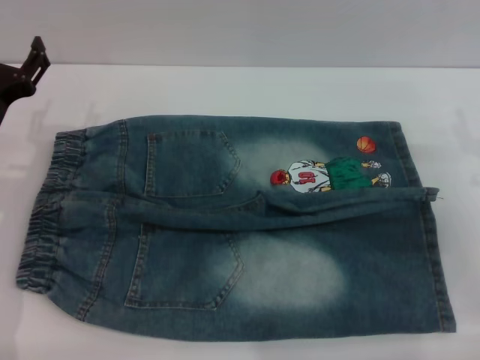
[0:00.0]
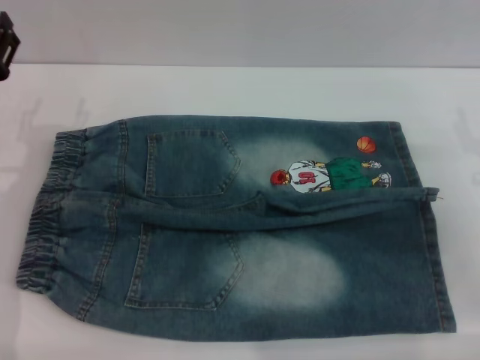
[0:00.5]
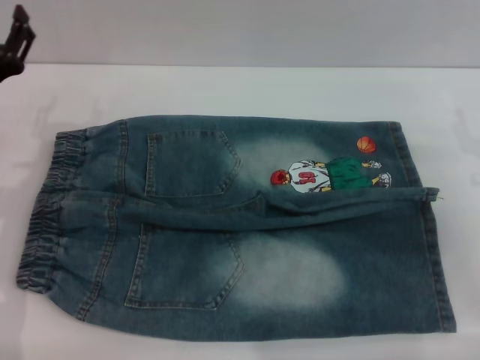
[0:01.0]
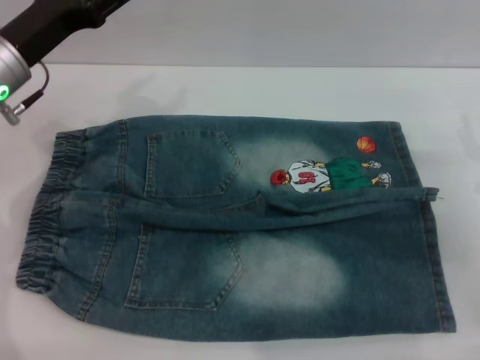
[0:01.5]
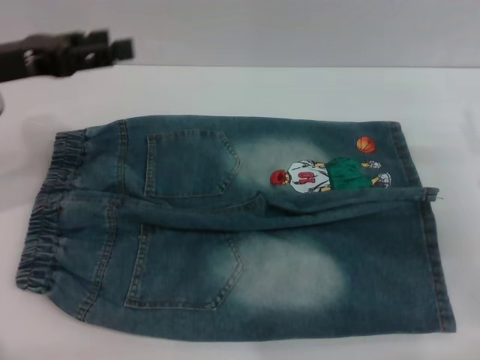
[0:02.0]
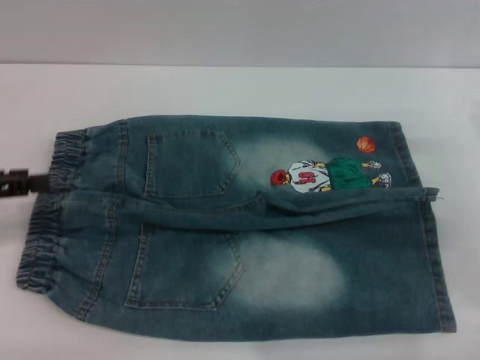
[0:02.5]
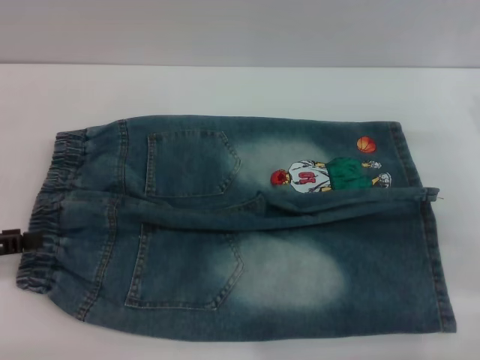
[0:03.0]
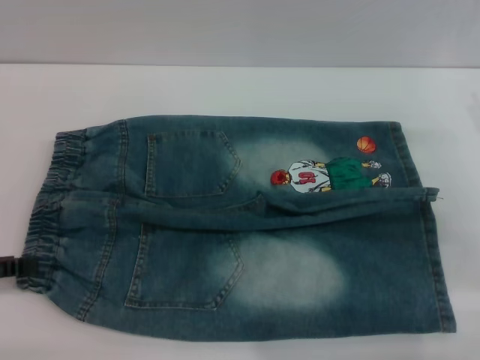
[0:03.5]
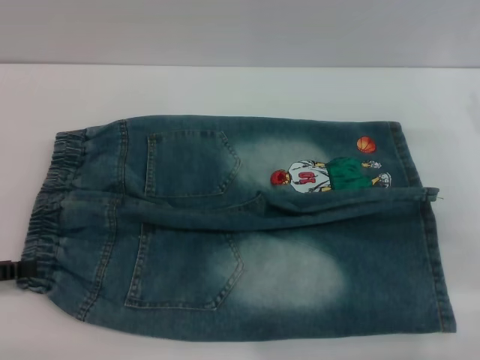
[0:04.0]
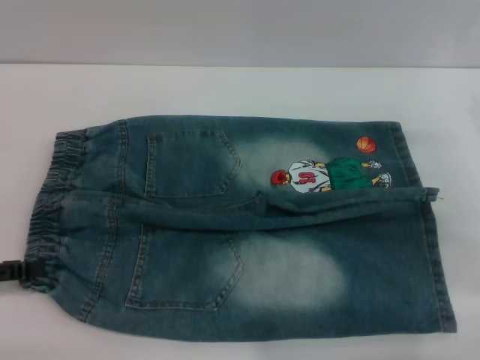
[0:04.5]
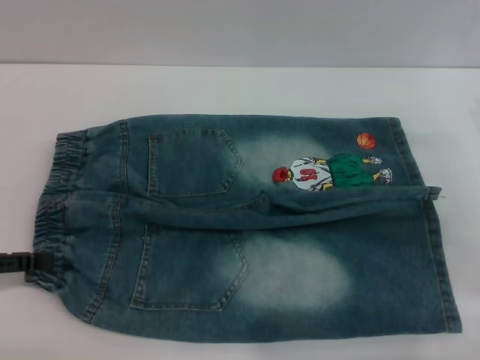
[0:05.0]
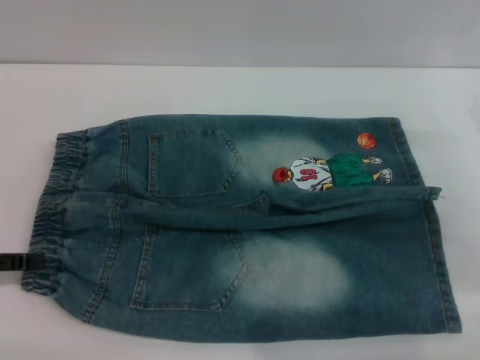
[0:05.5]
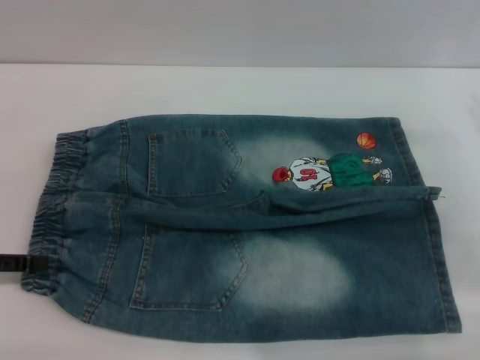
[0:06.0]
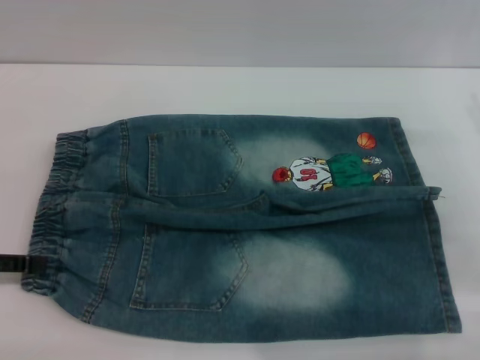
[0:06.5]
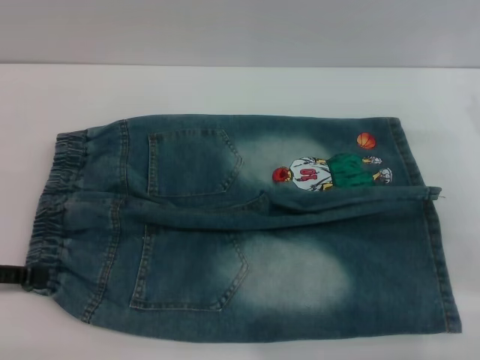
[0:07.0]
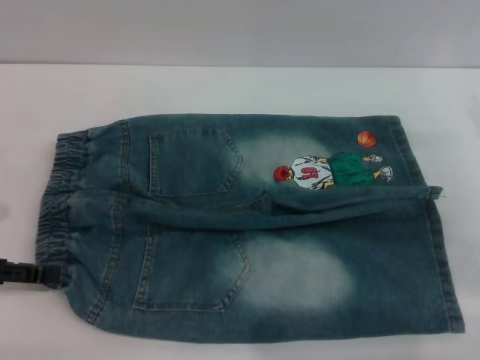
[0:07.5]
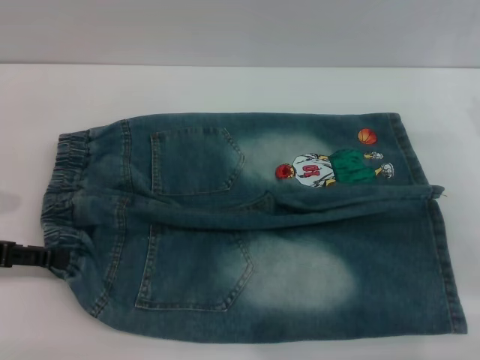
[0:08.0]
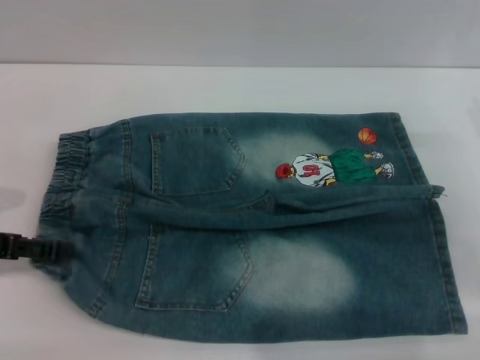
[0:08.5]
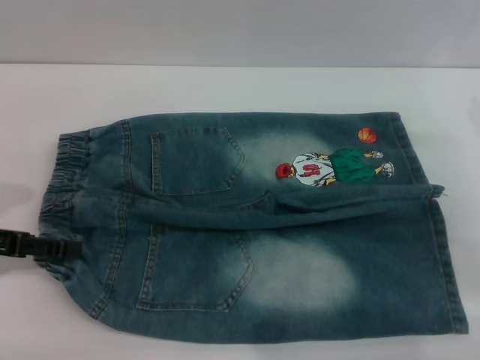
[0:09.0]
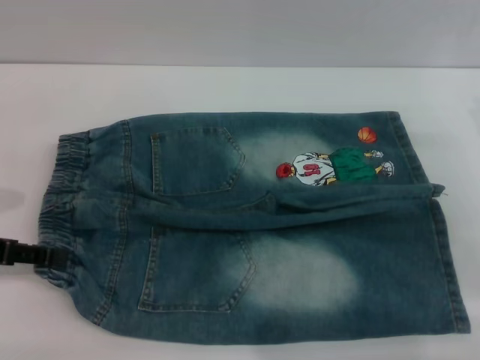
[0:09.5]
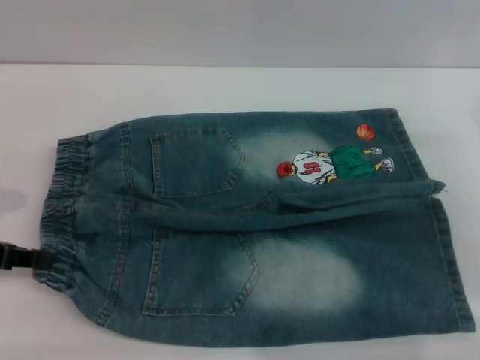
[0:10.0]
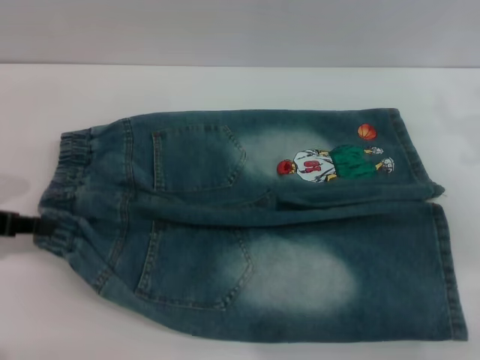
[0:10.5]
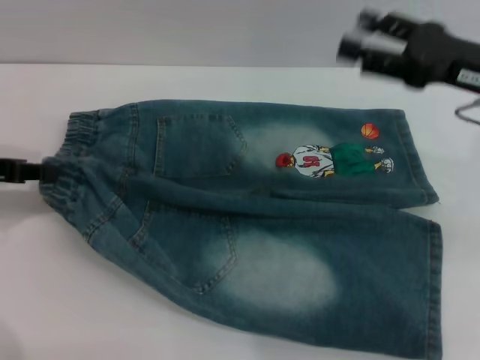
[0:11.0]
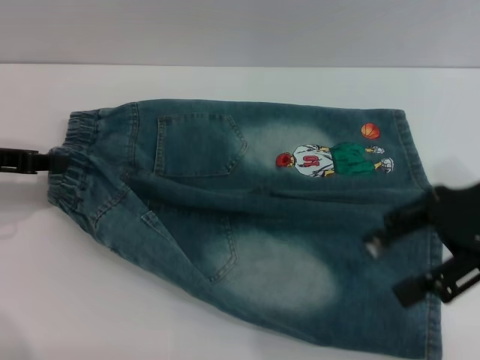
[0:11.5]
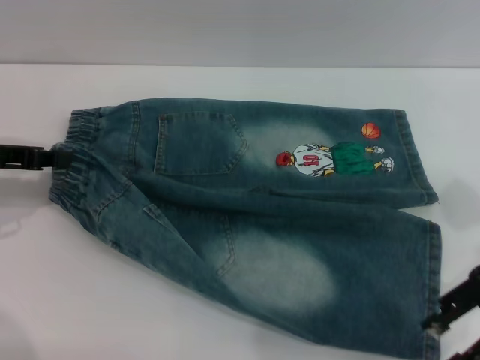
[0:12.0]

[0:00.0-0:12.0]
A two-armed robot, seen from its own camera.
0:00.0 to 0:02.0: The left gripper travels upward by approximately 10 cm.
0:02.0 to 0:04.0: The left gripper travels backward, downward and to the left by roughly 20 cm.
0:04.0 to 0:08.0: The grippers move only a little.
0:08.0 to 0:10.0: The left gripper closes up.
0:10.0 to 0:12.0: The right gripper goes roughly 10 cm upward. The left gripper goes some 5 cm forward, and closes up.

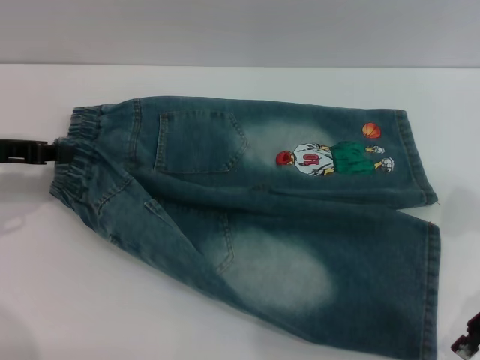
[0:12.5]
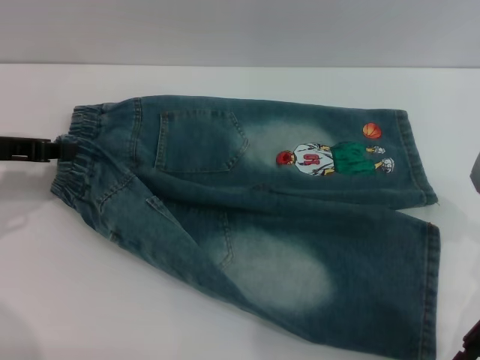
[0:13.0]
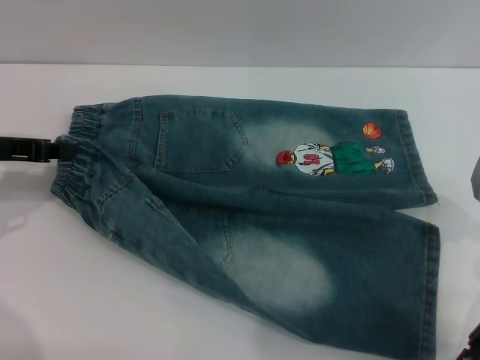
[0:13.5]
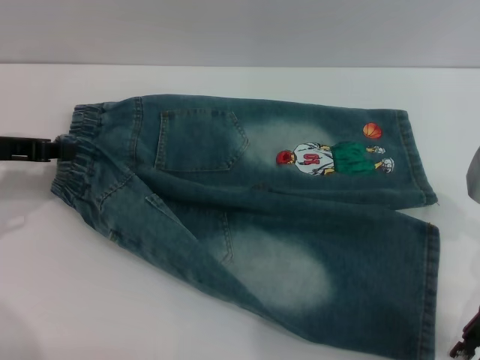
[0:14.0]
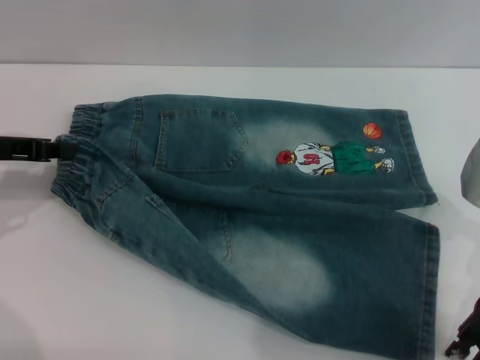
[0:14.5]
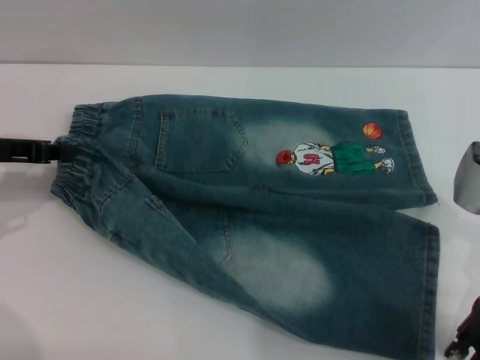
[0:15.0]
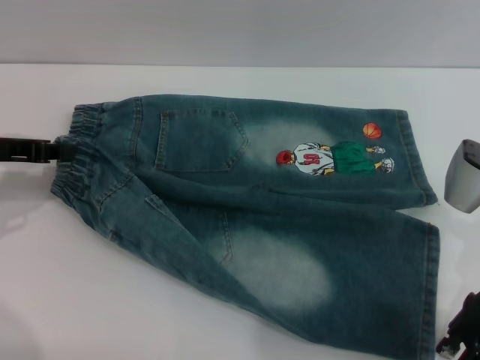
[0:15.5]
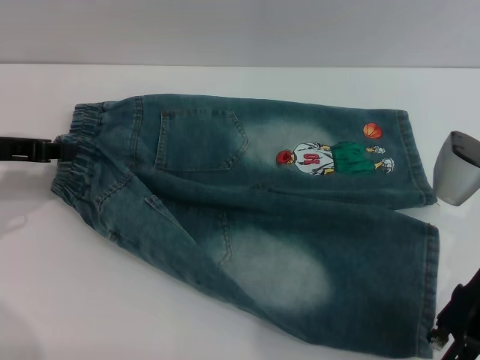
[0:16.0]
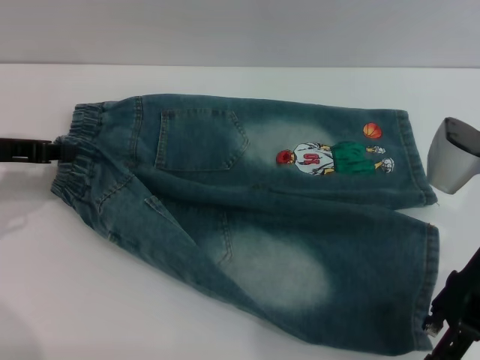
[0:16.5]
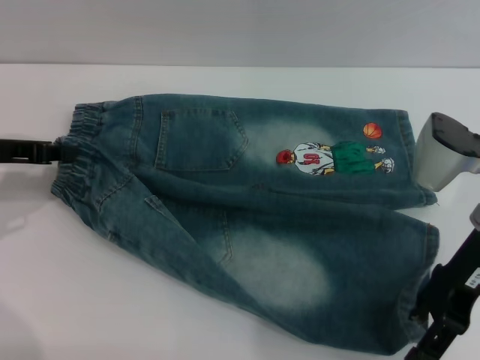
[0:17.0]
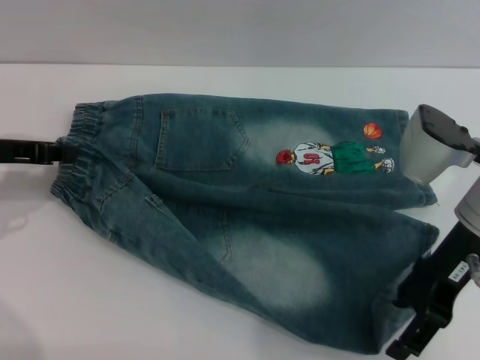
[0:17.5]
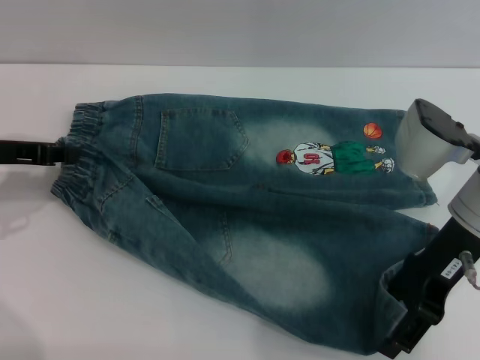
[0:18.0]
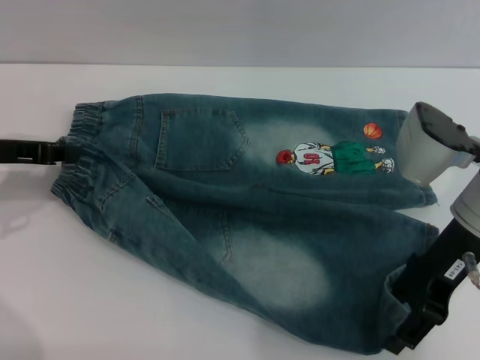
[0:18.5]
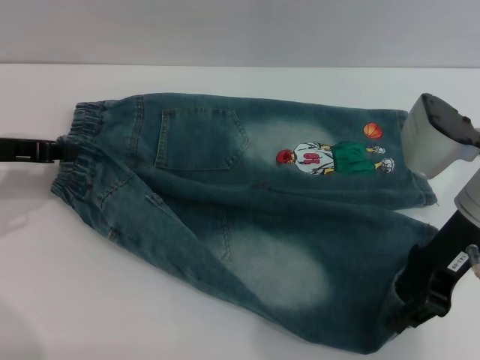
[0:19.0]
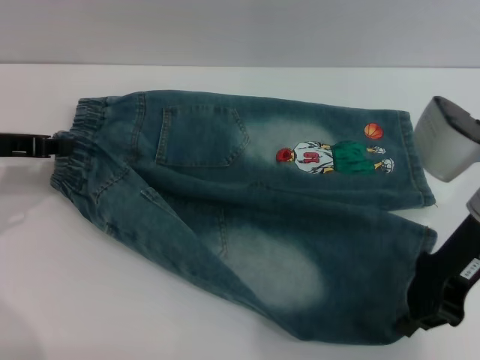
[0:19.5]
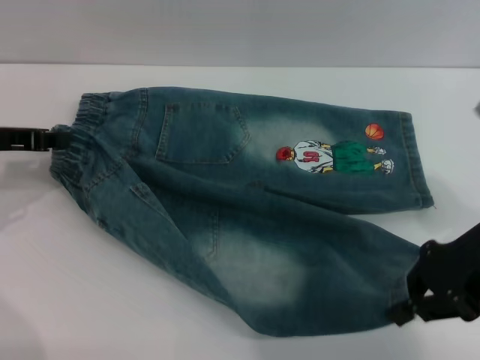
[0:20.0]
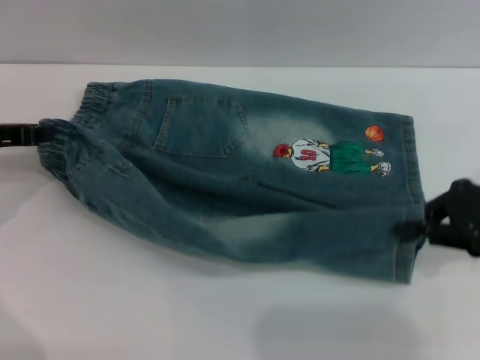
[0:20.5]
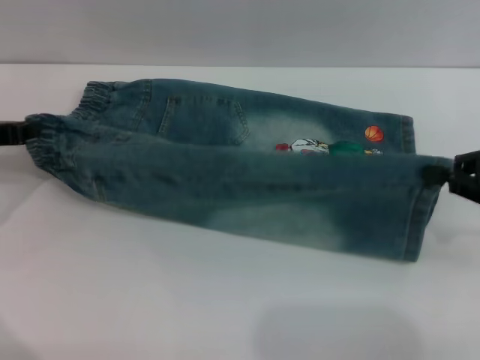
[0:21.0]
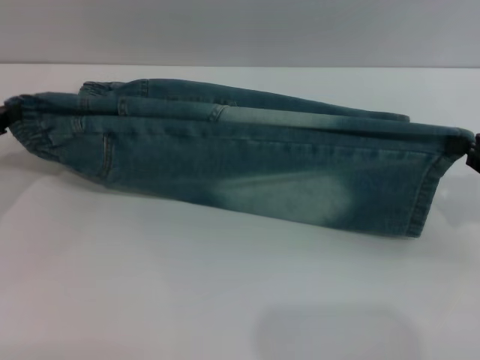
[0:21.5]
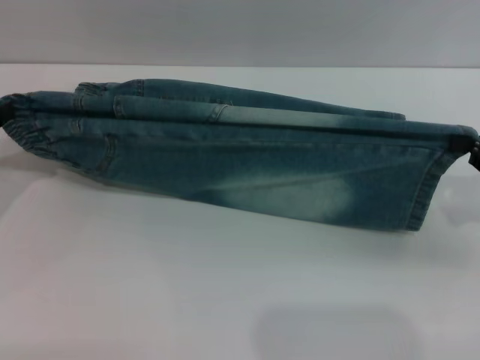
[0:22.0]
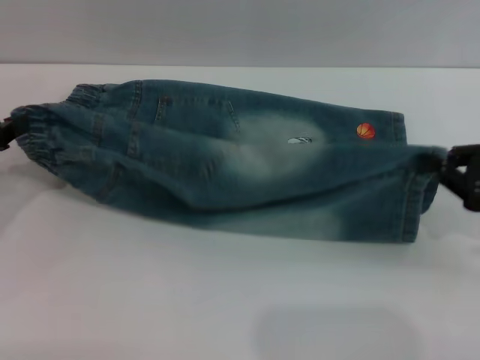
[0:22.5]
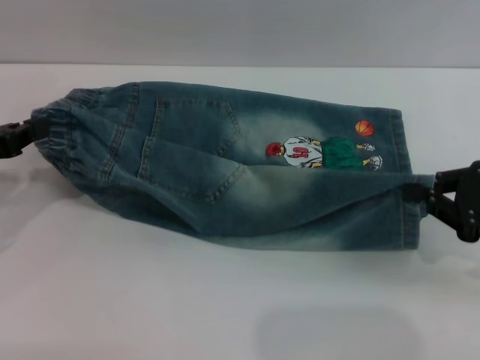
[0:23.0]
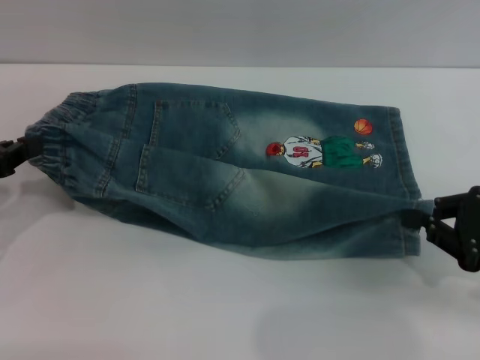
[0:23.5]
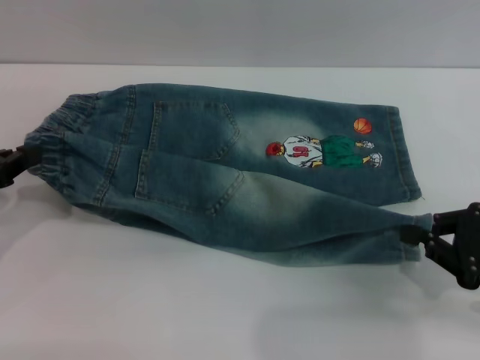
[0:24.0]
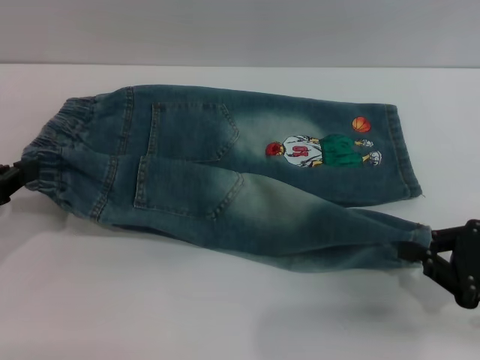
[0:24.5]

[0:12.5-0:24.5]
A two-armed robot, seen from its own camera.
0:12.5 to 0:16.5: The grippers make only small movements.
0:16.5 to 0:18.5: The grippers move only a little.
0:18.5 to 0:20.5: The right gripper shifts approximately 10 cm to the right, and closes.
0:20.5 to 0:22.5: The left gripper heads backward, covering roughly 5 cm. The right gripper changes place by approximately 5 cm.
0:22.5 to 0:24.5: The right gripper shifts approximately 5 cm backward.

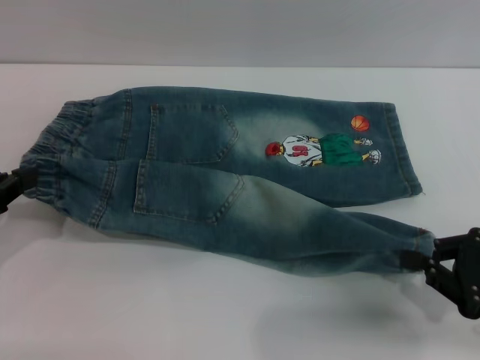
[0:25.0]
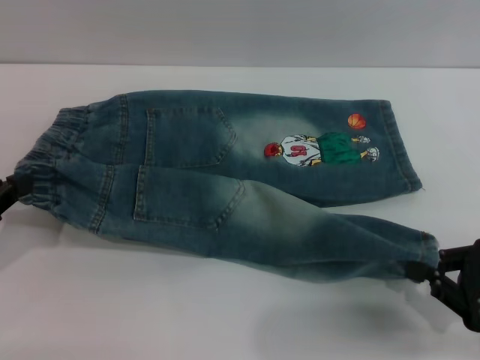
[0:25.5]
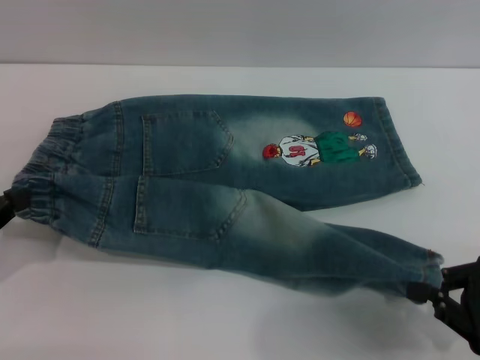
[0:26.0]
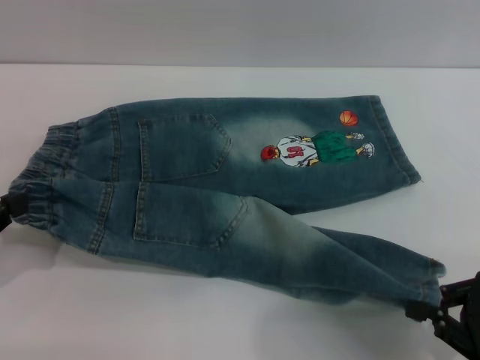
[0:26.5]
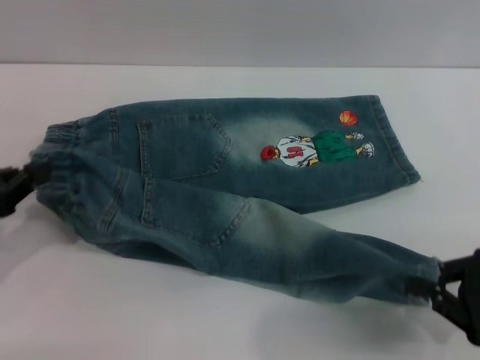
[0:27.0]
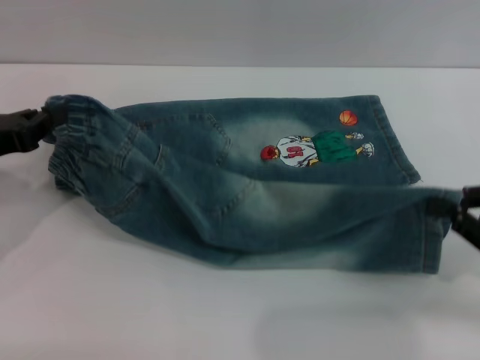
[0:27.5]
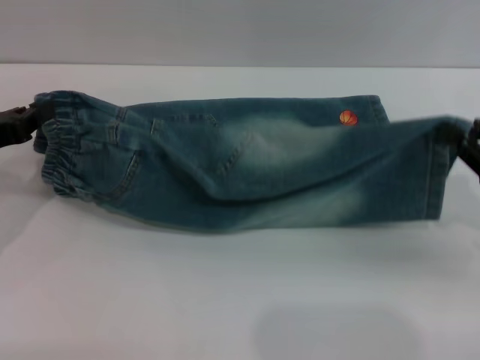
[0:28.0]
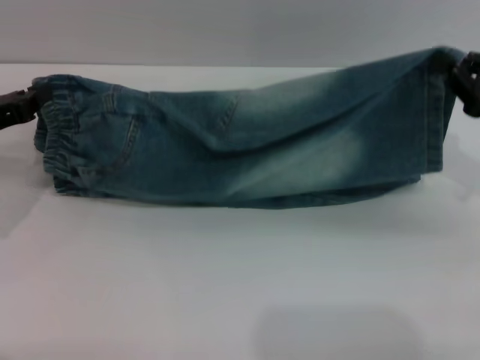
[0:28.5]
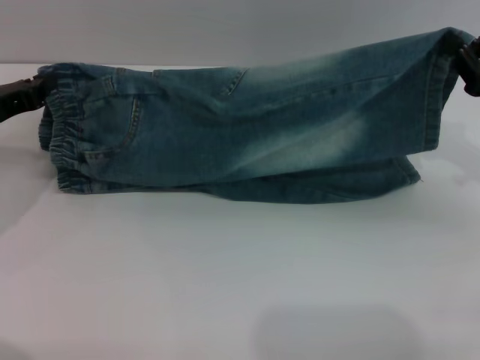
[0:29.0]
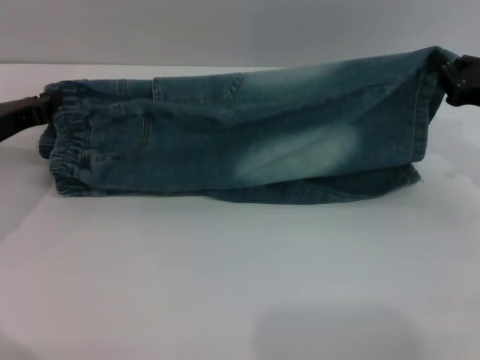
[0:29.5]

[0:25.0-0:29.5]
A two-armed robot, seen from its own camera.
0:25.0 to 0:27.0: The grippers move only a little.
0:27.0 to 0:29.5: Both grippers travel together forward, roughly 15 cm.
